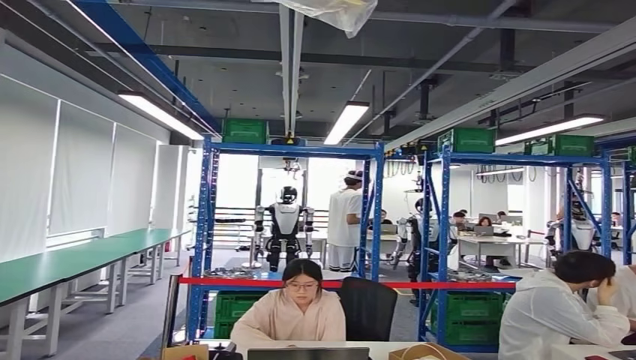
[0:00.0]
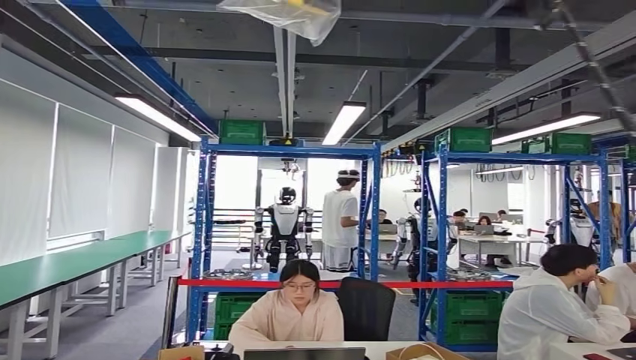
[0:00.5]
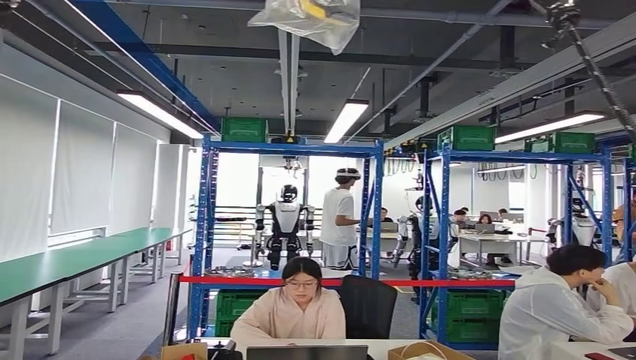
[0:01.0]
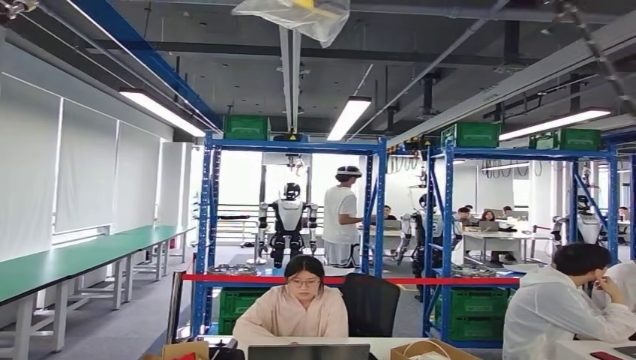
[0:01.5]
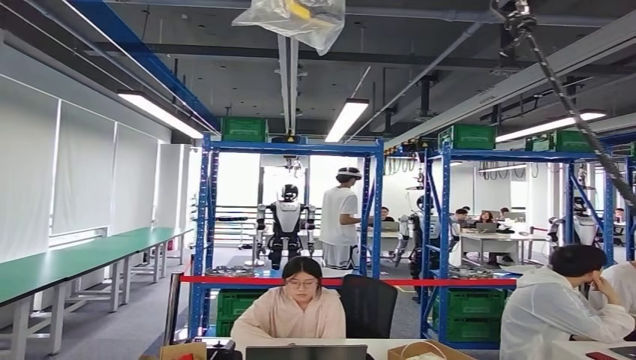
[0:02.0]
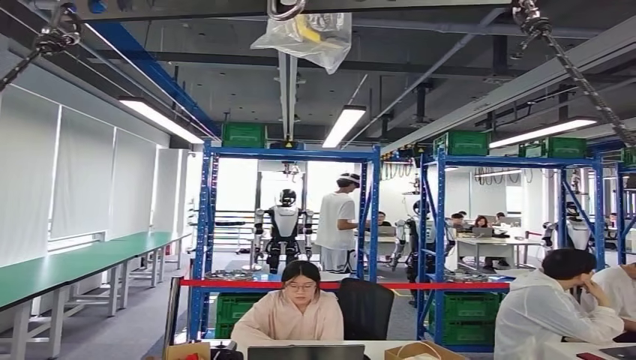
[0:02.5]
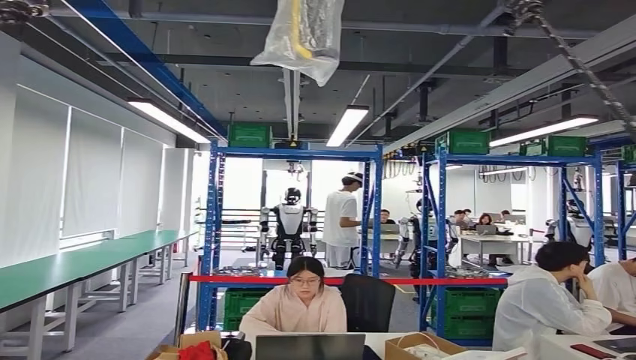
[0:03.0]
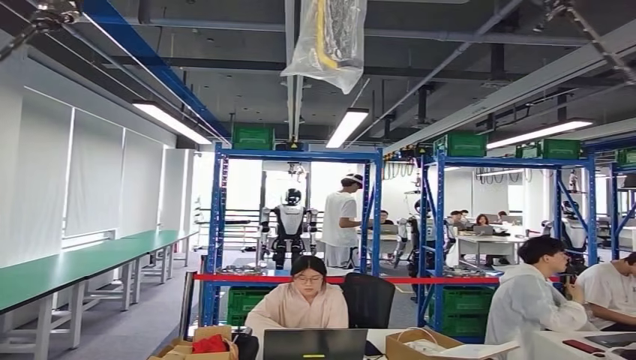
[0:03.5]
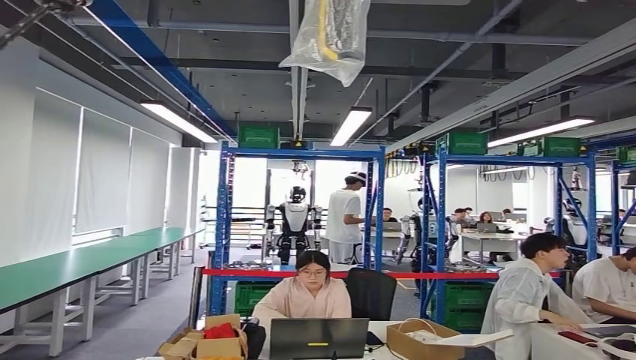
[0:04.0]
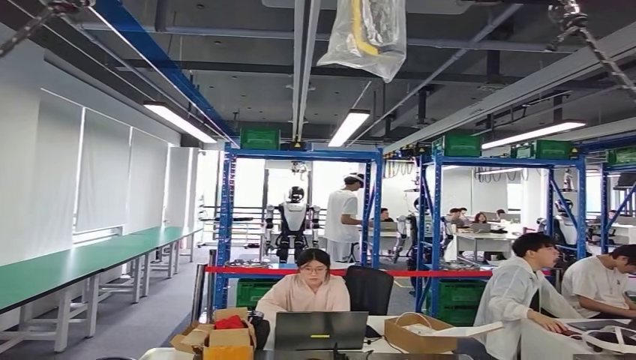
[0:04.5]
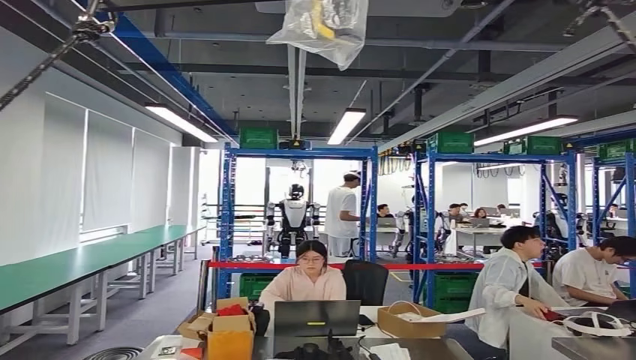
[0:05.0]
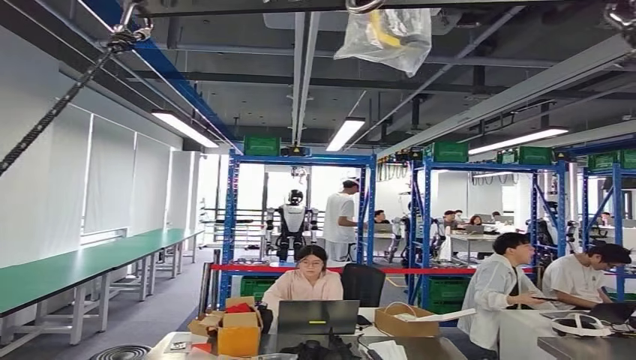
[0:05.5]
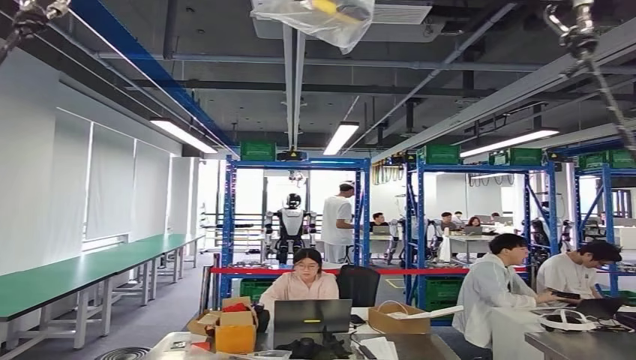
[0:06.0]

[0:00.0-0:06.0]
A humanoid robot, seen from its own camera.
Step, 0:00.0 to 0:02.5: Insert the small component into the corresponding slot on the workbench.
Step, 0:03.0 to 0:06.0: Return to the initial position at the workbench.
